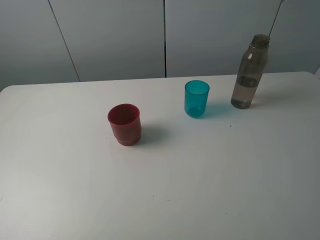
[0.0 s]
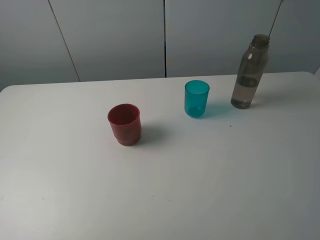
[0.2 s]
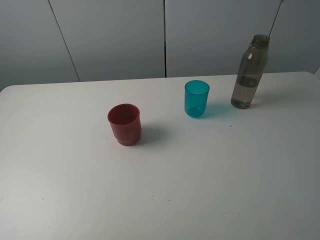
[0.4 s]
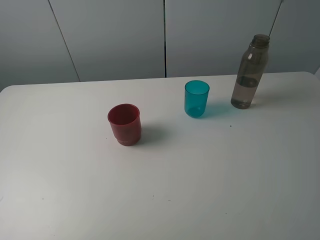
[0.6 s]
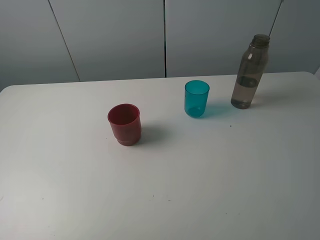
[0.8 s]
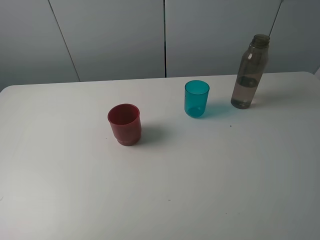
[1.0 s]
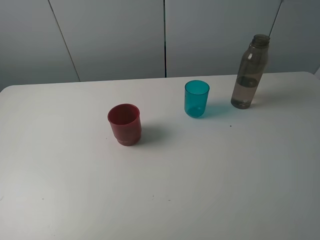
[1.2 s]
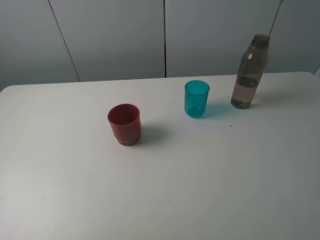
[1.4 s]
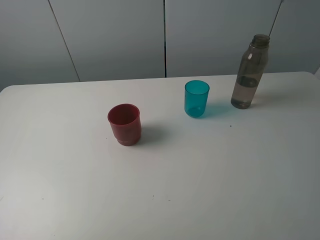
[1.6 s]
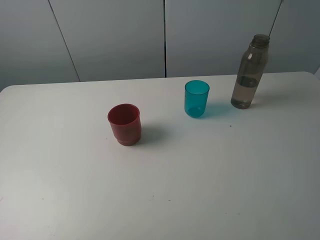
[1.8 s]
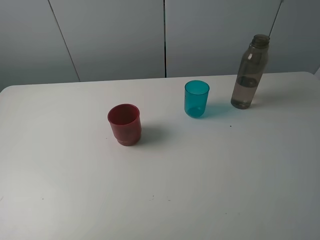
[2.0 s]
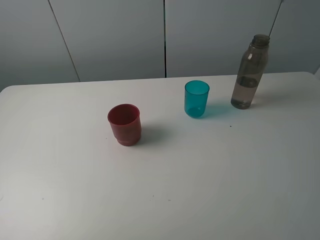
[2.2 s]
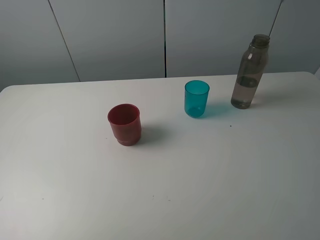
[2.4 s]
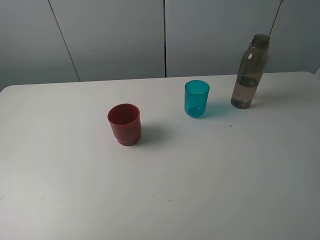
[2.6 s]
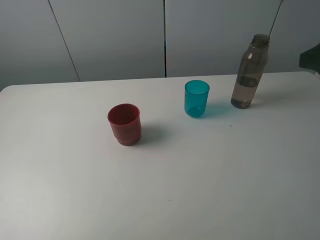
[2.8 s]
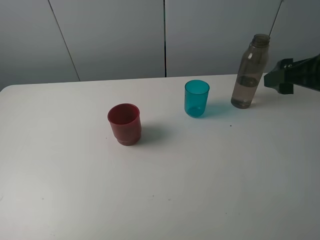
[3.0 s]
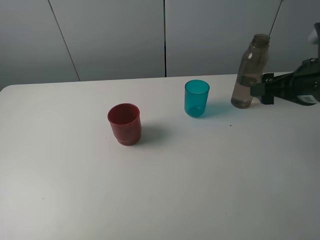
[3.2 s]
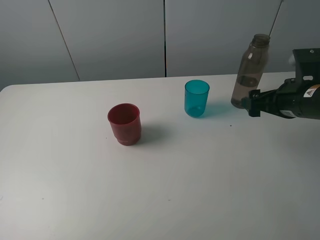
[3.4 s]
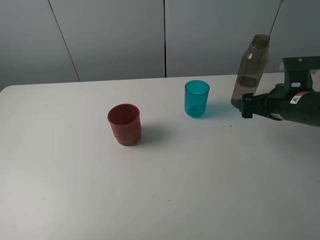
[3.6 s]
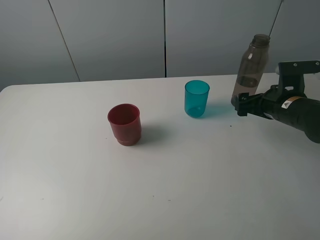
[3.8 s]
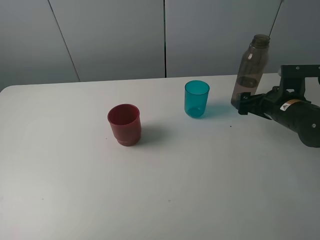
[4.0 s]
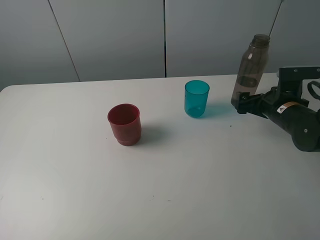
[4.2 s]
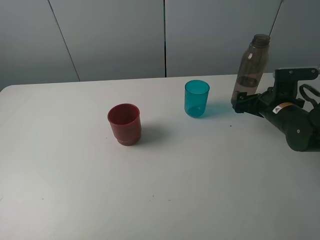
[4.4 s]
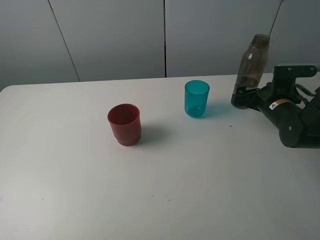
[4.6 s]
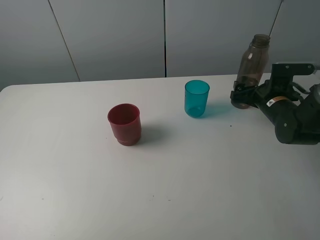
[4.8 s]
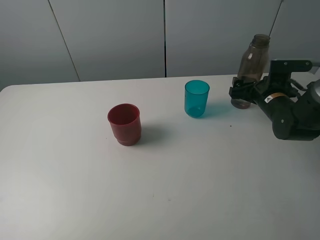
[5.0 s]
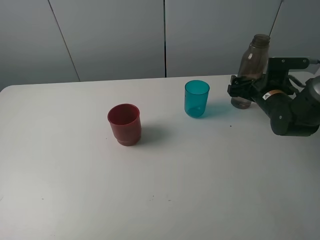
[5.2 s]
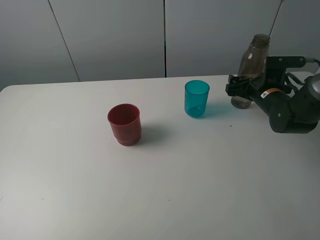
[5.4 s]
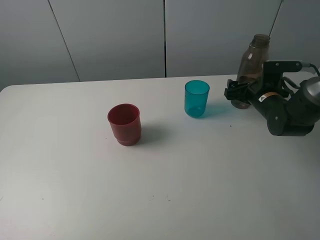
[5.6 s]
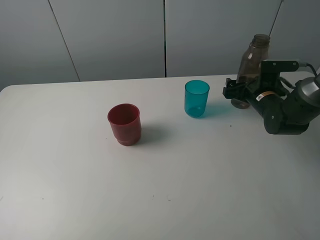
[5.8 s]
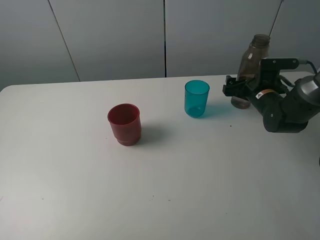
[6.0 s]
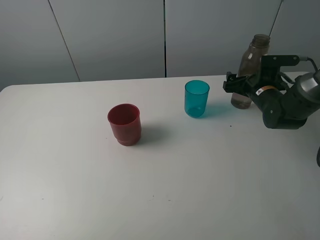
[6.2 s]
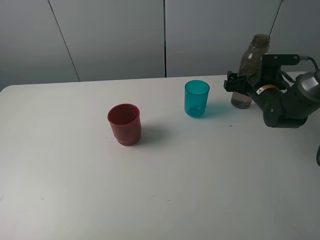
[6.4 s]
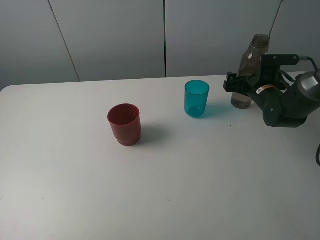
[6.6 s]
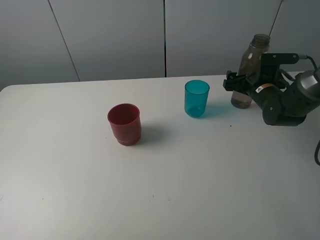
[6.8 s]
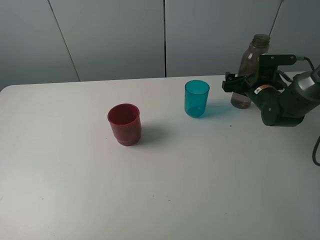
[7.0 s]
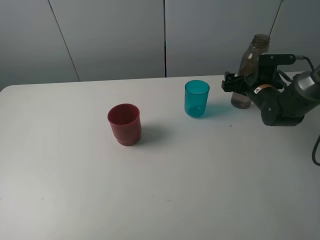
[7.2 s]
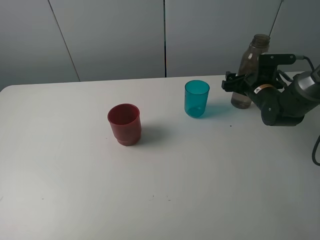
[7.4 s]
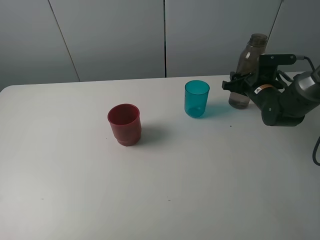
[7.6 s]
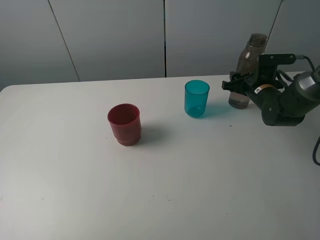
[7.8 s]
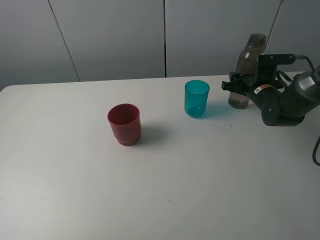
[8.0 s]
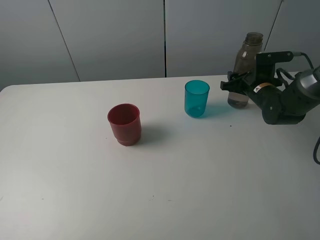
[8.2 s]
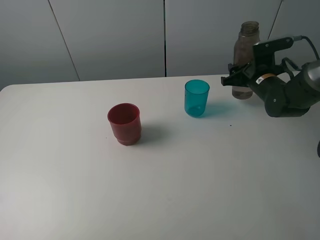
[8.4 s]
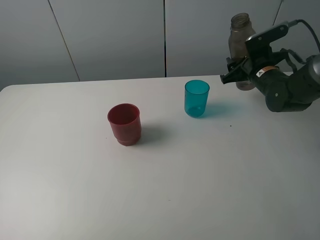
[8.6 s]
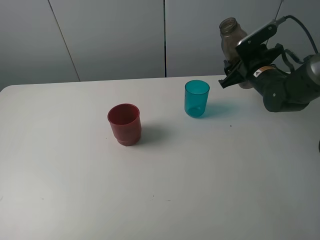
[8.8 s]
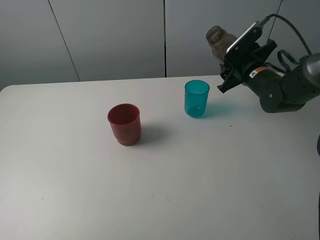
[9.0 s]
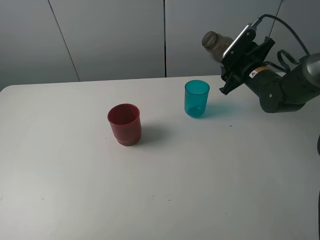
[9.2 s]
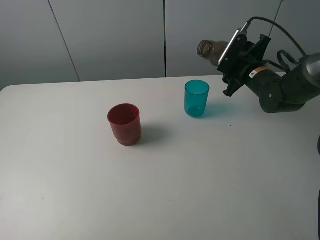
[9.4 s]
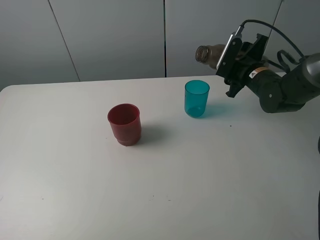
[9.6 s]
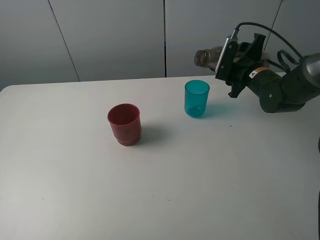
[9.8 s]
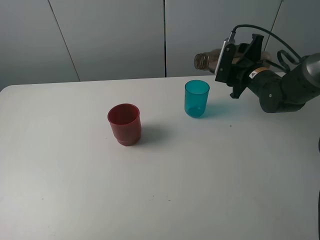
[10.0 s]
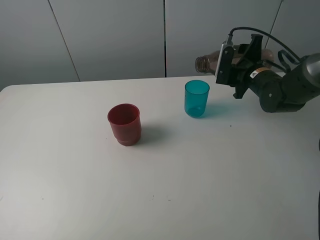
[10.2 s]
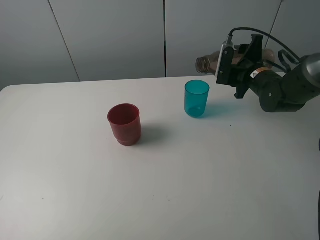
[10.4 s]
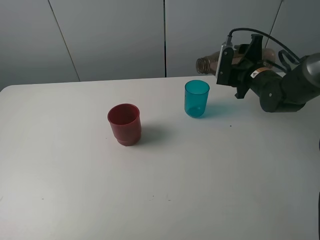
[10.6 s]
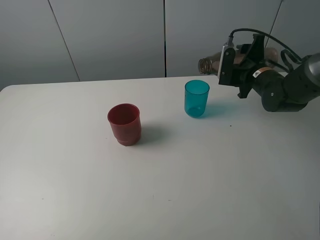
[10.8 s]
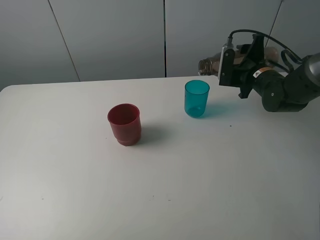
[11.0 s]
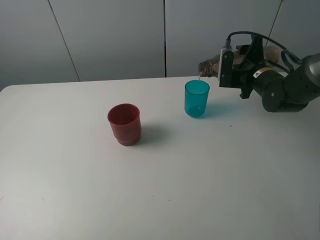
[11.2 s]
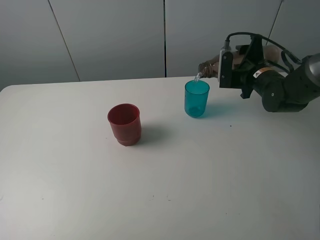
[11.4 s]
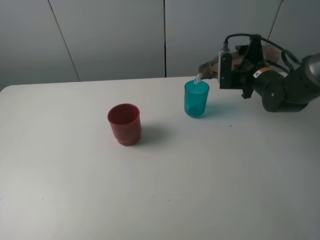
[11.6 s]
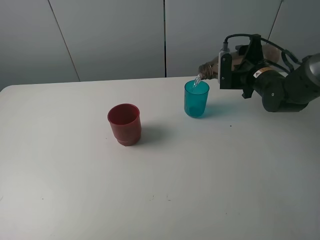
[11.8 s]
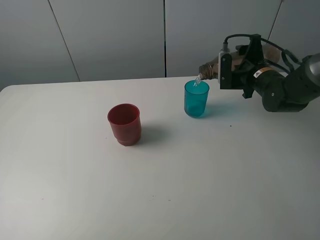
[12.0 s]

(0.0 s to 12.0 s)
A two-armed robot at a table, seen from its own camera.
Task of the whole recording: pick up the bottle and pour water into the cup, then pick up the cup containing water and pour it into another cup.
Step, 0.0 s - 7.8 s: Grasp the brown bottle with the right gripper.
0.0 s - 1.6 s: Both grippers stay about where they are.
1.6 s - 3.0 s: The right gripper is displaced forward by approximately 25 cm.
3.0 s - 4.4 s: The right gripper goes approximately 20 cm downward and forward.
4.4 s - 6.0 s: The right gripper goes roughly 5 cm forward.
6.0 s - 7.6 s: The right gripper closes up.
7.6 s - 9.0 s: The right gripper shifts about 5 cm upward.
10.4 s - 12.0 s: The grippers stay close to where they were, moving slightly.

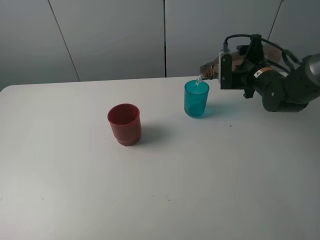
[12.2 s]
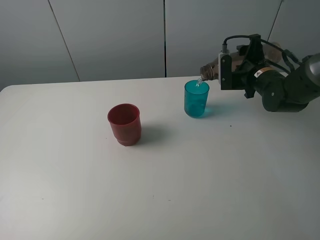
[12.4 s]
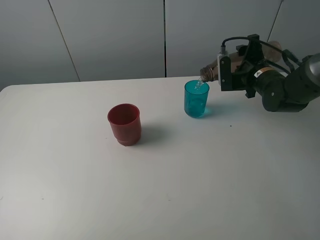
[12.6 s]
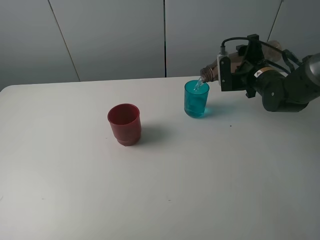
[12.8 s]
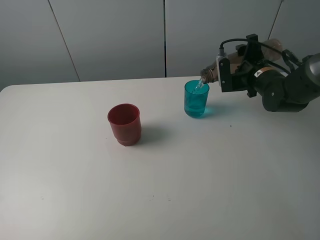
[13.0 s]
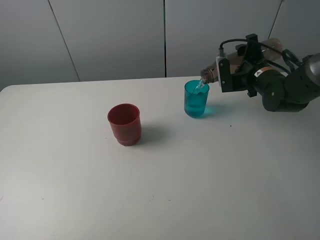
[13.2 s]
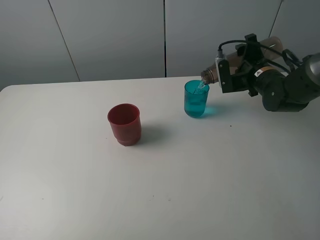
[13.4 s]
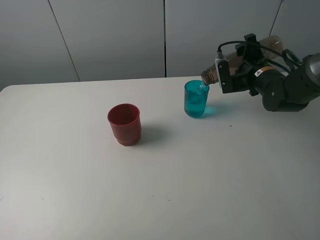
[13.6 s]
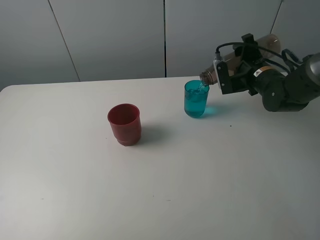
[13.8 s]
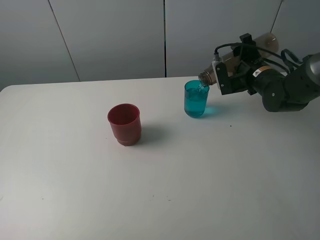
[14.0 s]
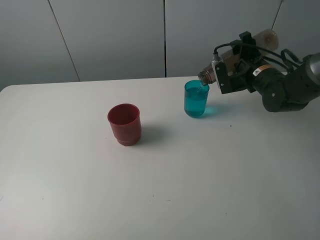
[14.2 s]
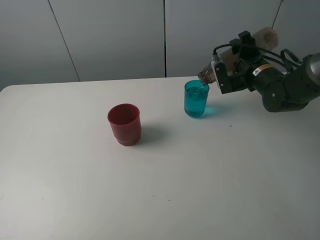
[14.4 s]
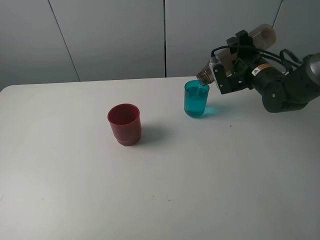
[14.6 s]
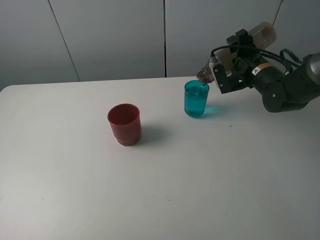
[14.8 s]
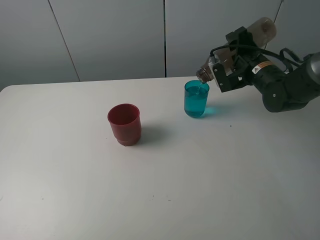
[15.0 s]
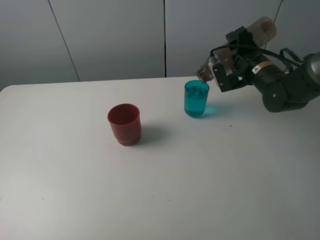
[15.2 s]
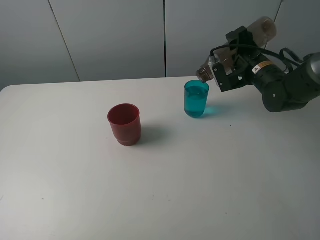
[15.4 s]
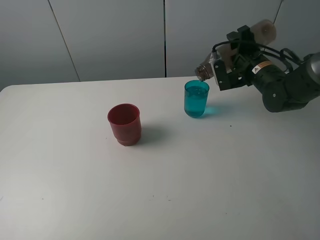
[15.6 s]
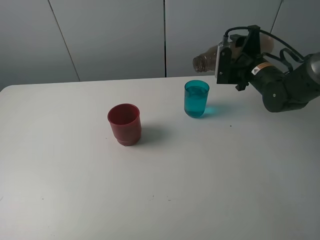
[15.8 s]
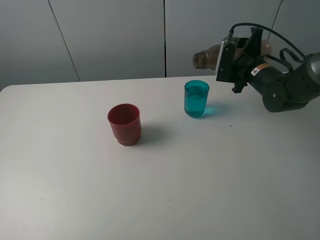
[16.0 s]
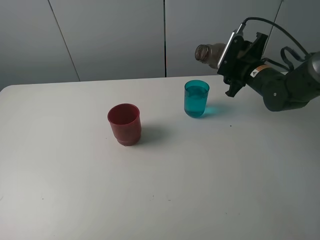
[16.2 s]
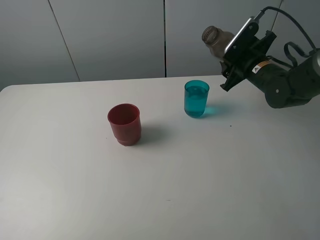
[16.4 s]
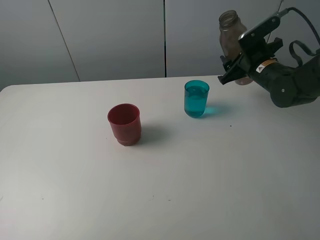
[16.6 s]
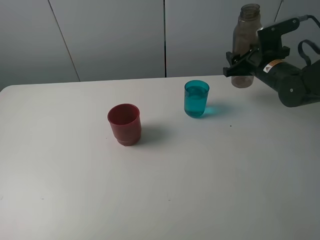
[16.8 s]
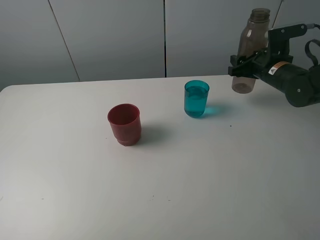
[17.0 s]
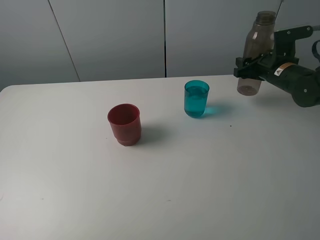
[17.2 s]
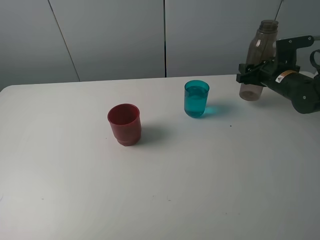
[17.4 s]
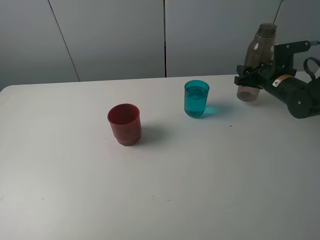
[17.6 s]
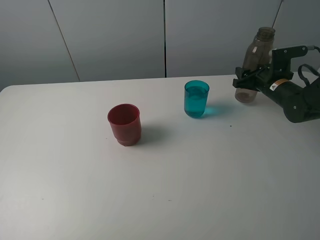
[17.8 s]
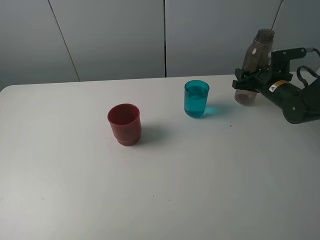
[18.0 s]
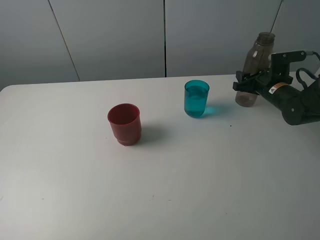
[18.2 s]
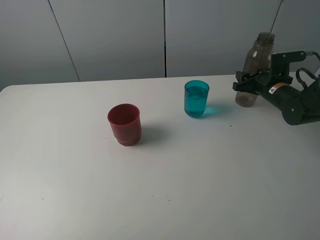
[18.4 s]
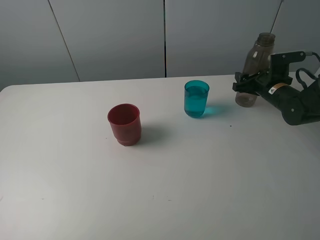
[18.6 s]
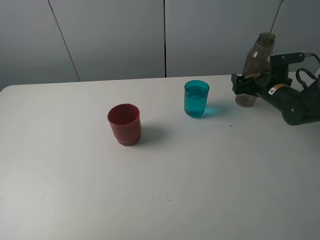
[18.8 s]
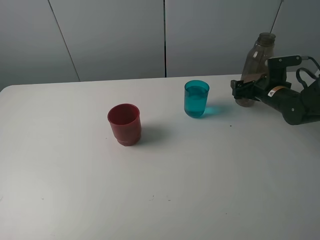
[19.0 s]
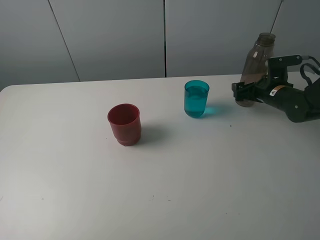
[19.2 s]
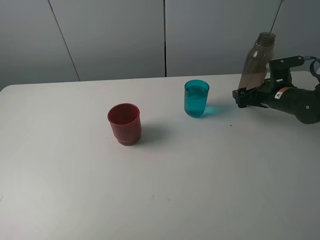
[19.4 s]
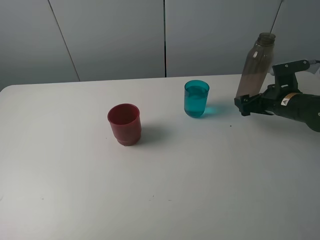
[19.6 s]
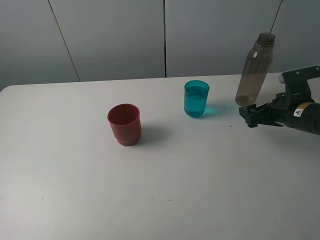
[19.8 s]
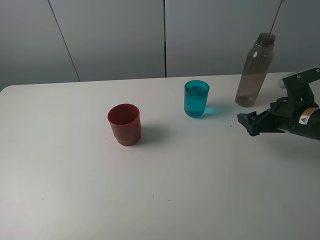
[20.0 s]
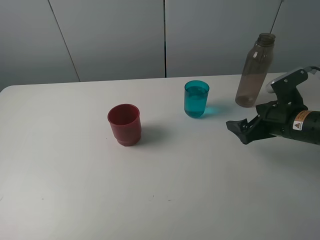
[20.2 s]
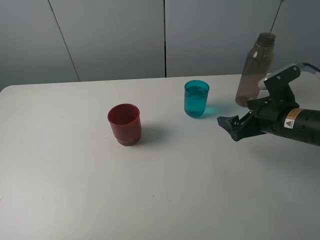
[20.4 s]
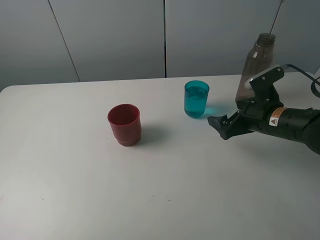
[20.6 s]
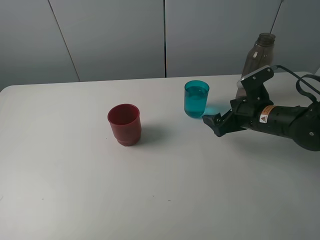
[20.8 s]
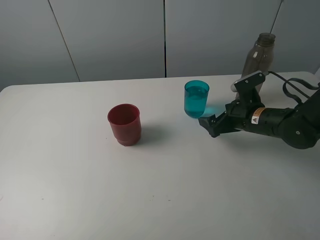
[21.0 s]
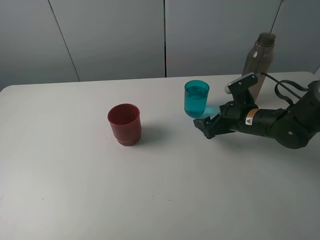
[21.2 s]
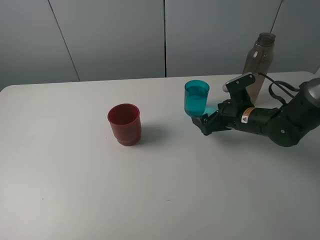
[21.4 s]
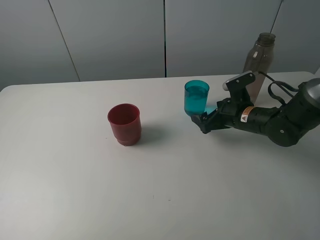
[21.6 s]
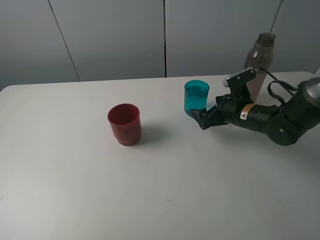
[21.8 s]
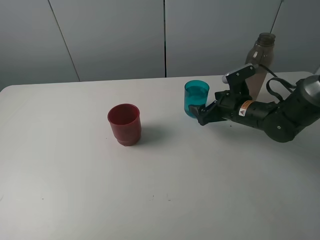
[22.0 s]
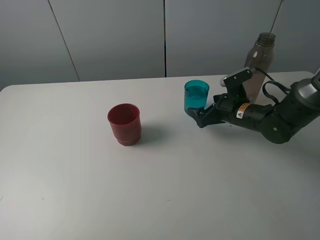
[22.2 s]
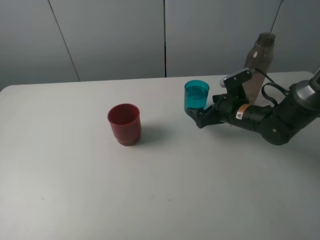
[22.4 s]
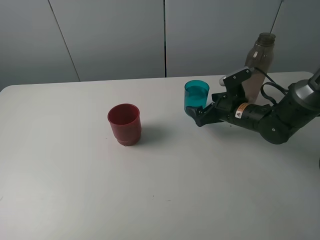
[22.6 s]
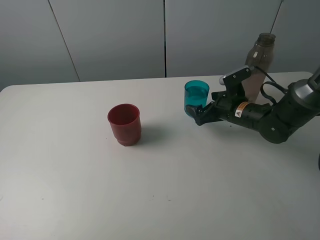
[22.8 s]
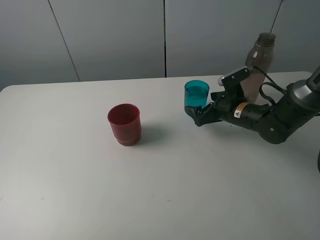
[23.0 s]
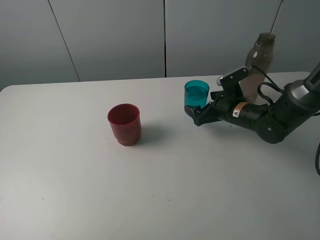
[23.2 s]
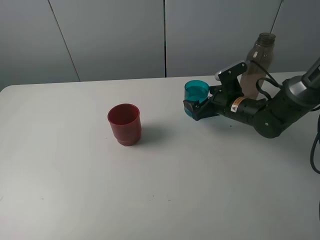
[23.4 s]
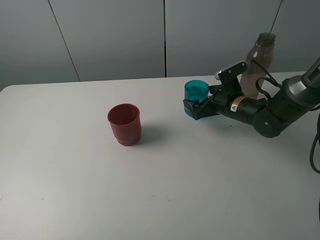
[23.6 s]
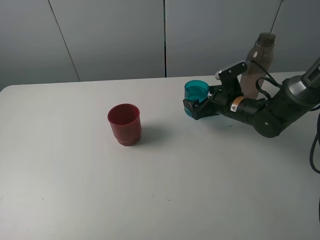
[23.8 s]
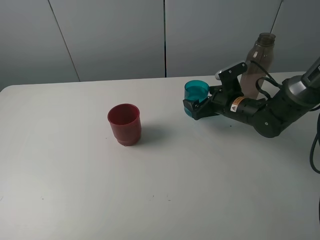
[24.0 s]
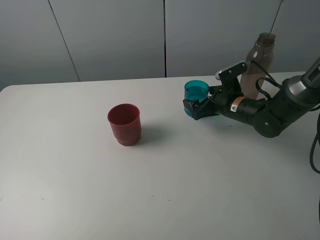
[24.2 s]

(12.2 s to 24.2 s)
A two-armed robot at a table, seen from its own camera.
Task of the whole recording: pick up the bottle and pour water into the cup, then pick up the cup containing water and pour it into another cup.
Step, 15.8 s - 18.8 s: Place the brown bottle with the right gripper.
12.2 s - 13.8 s: The grippers stay close to where they were, moving slightly.
13.8 s - 15.2 s: The grippers move only a little.
16.6 s - 18.2 s: The right gripper shifts about 10 cm downward and to the right.
18.2 s - 19.8 s: The right gripper heads backward, covering some 10 cm, and opens up.
19.8 s - 21.2 s: The right gripper is displaced to the left by approximately 10 cm.
21.2 s - 24.2 s: The grippers stay close to where they were, moving slightly.
